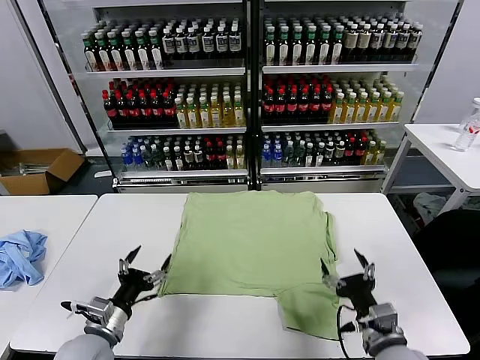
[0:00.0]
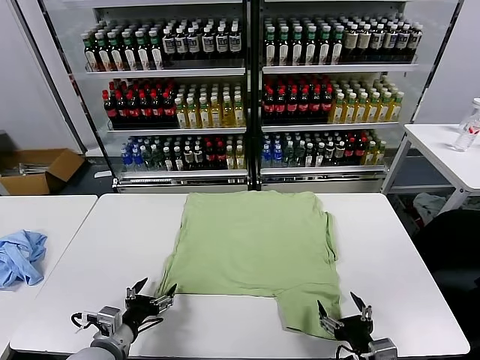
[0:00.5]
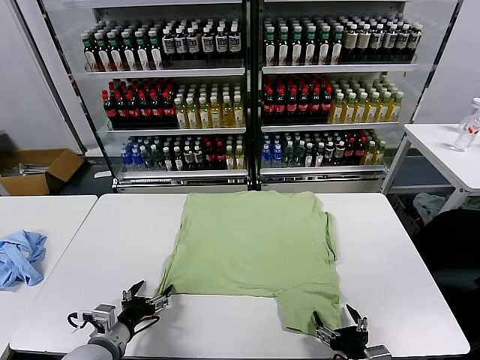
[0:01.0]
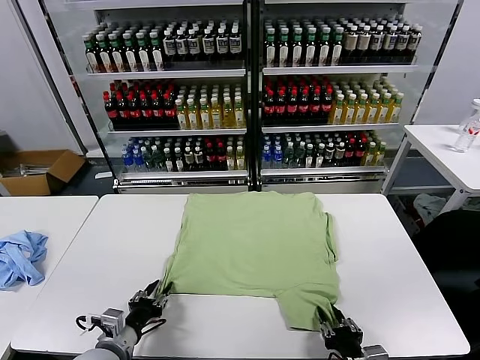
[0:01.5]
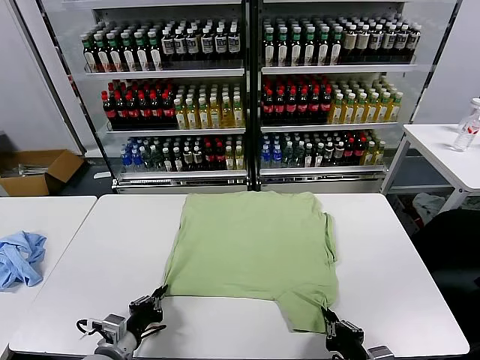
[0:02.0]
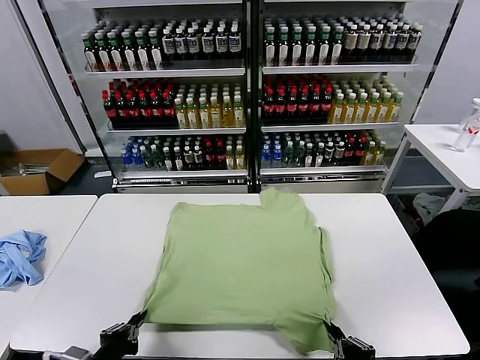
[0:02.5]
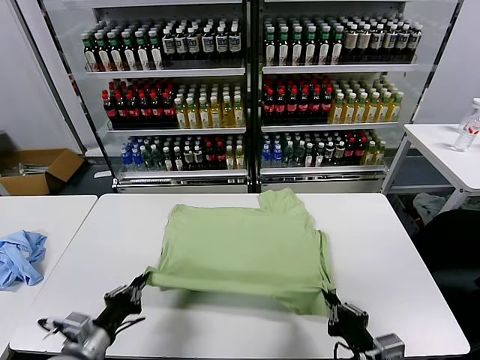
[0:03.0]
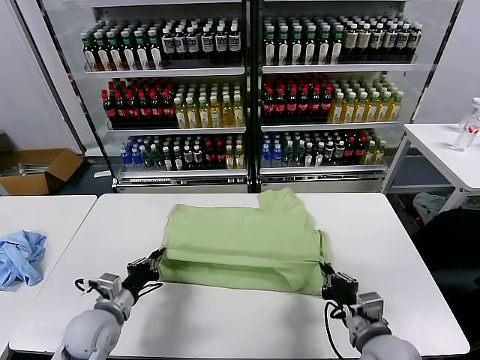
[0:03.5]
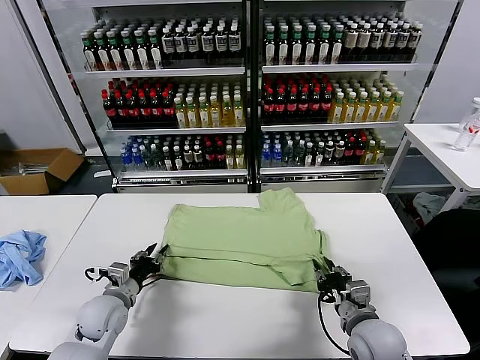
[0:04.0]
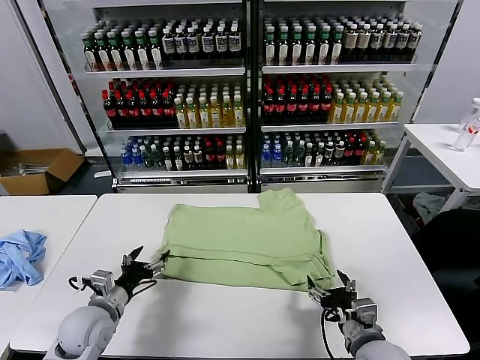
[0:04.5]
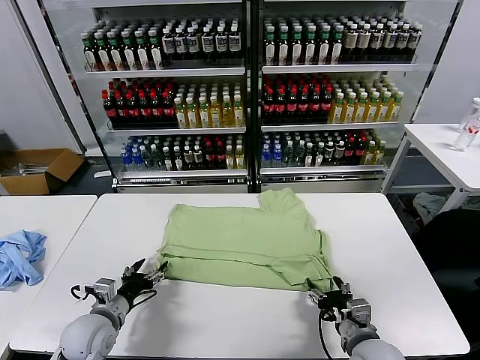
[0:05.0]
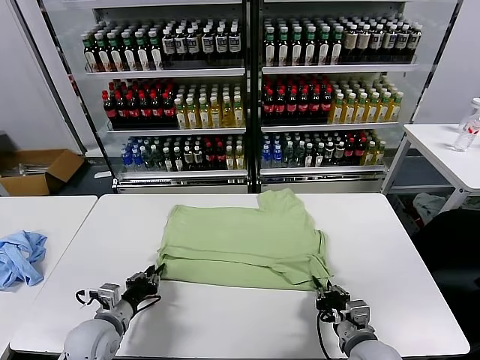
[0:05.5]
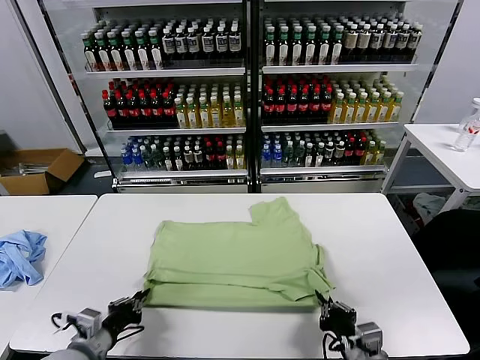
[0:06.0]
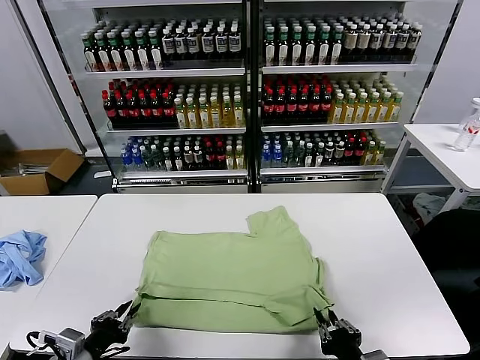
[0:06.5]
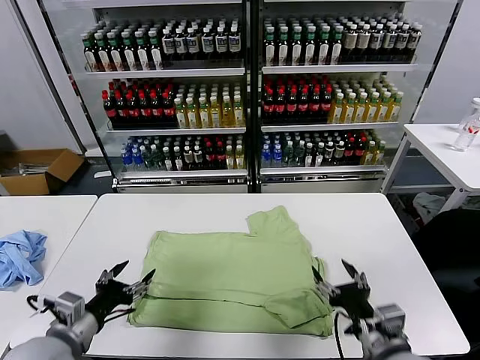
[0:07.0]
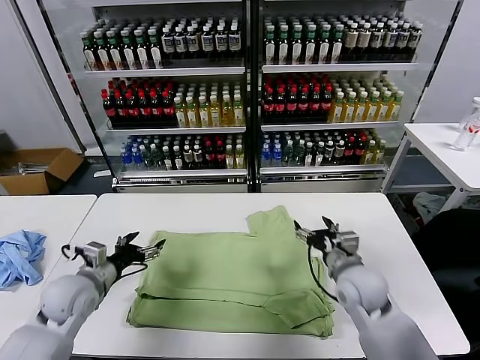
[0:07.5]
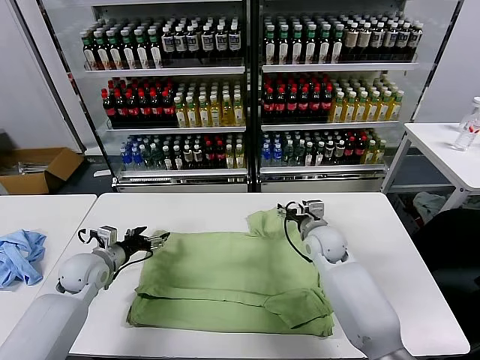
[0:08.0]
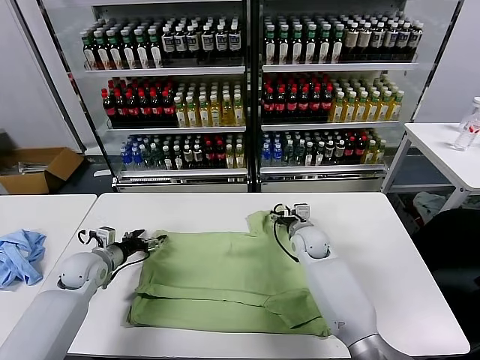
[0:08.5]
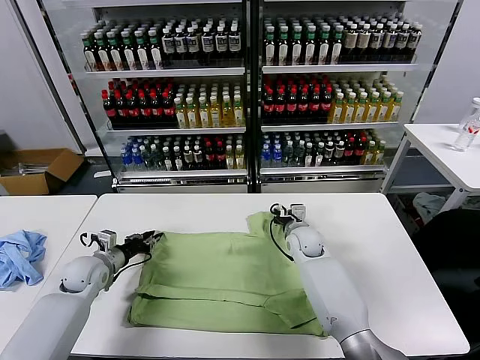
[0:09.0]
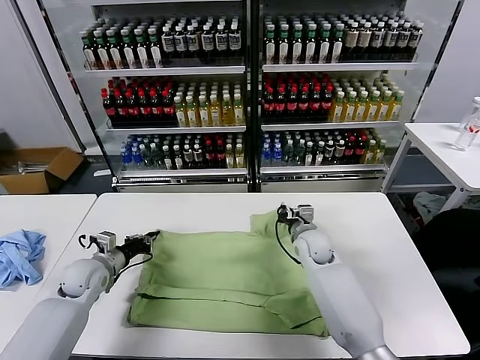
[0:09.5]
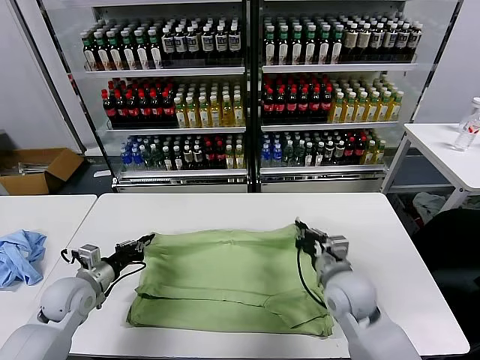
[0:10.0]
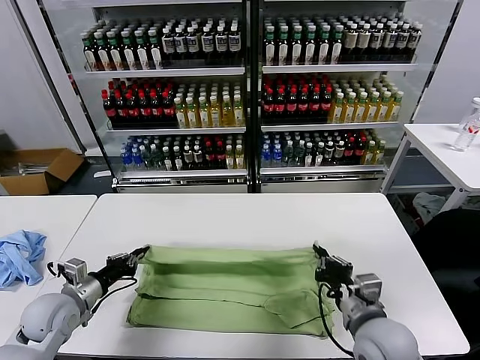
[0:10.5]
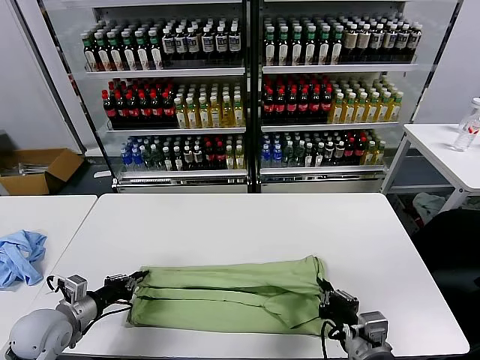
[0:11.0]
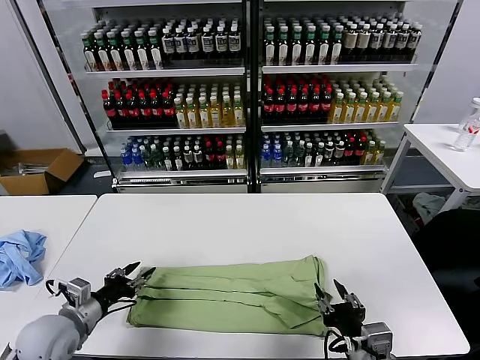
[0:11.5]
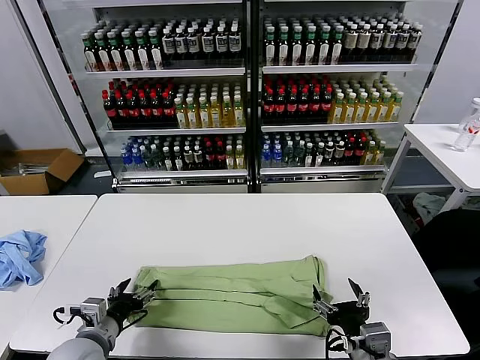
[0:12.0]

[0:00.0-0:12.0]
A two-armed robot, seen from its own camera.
Task of the whole recording: fold and organize the clothes.
Step, 0:00.0 to 0:01.5: use both grippers simultaneously to clamp the lower edge of the clothing fabric.
Step, 0:02.0 to 0:04.0: use both grippers to drag the lower edge of the fabric forward and fold it over the upper edge.
Step, 0:04.5 to 0:06.5: Drag the clothes downward with both gripper.
Step, 0:07.0 to 0:09.0: use both grippers simultaneously to clamp the upper edge of the clothing fabric.
Step, 0:09.5 to 0:11.0: use both grippers to drag the upper edge of the fabric backward and fold it over the lower edge.
0:02.0 to 0:04.0: The grippers both shift forward by approximately 15 cm. The left gripper opens its fingers. The right gripper opens its fingers.
0:04.0 to 0:06.0: The two grippers go some 10 cm backward. The left gripper closes. Meanwhile the right gripper closes up.
0:06.0 to 0:08.0: The left gripper goes some 20 cm forward, and opens. Meanwhile the right gripper shifts approximately 35 cm forward, and opens.
0:08.0 to 0:10.0: The right gripper goes roughly 15 cm backward, and closes. Meanwhile the left gripper is displaced backward by approximately 5 cm, and closes.
0:10.0 to 0:12.0: The right gripper moves backward, some 15 cm, and opens its fingers. The left gripper shifts roughly 15 cm backward and to the right, and opens its fingers.

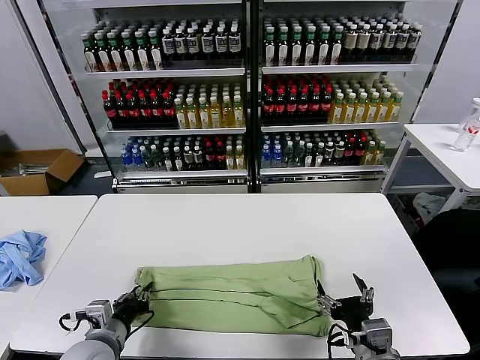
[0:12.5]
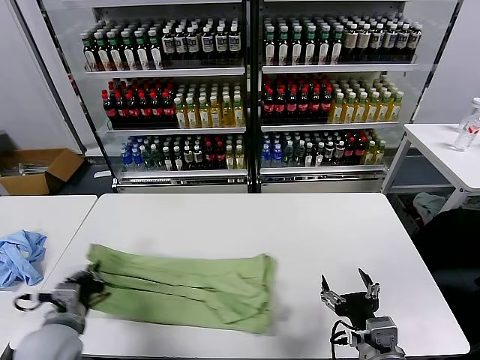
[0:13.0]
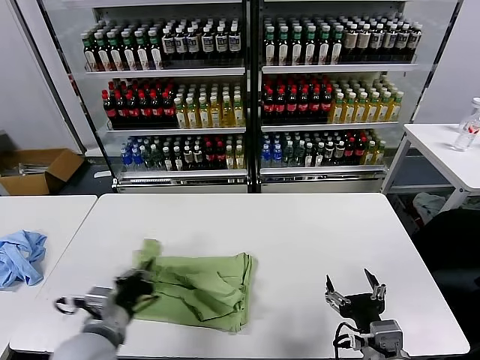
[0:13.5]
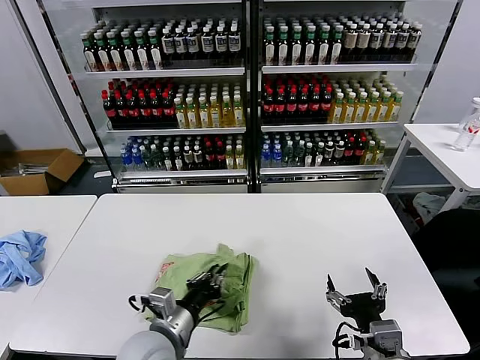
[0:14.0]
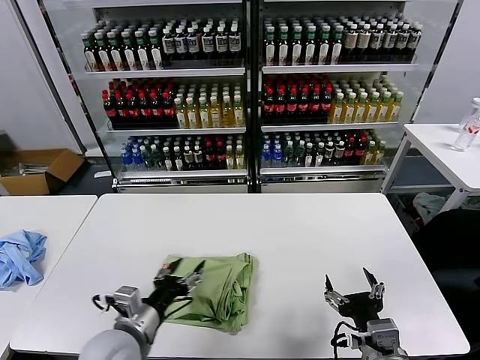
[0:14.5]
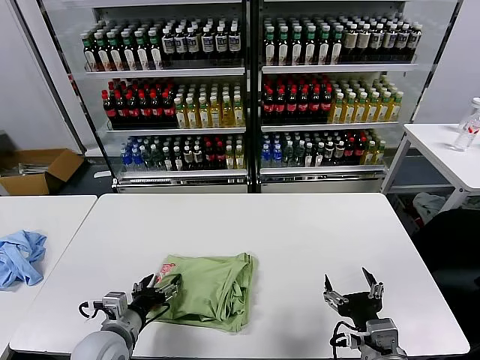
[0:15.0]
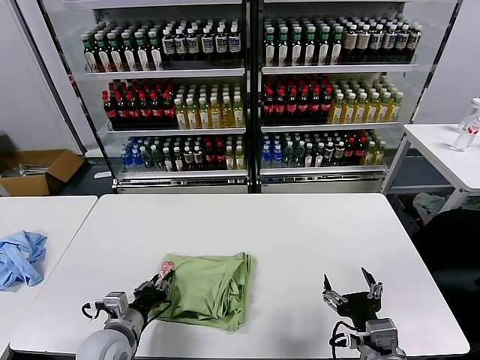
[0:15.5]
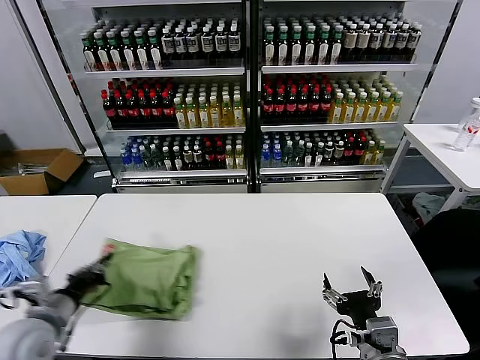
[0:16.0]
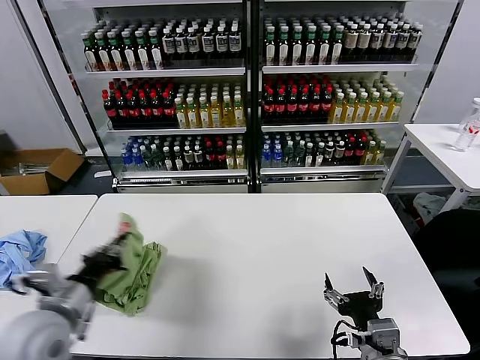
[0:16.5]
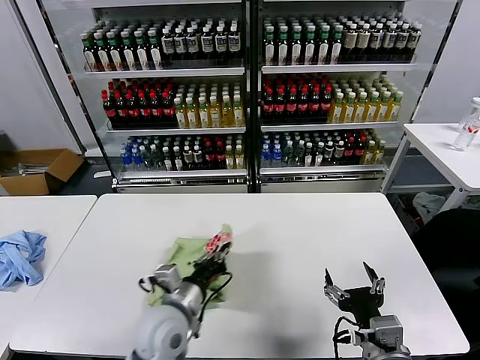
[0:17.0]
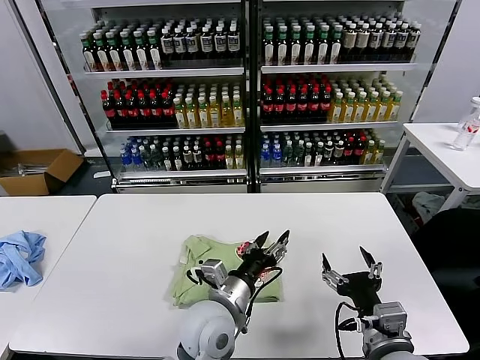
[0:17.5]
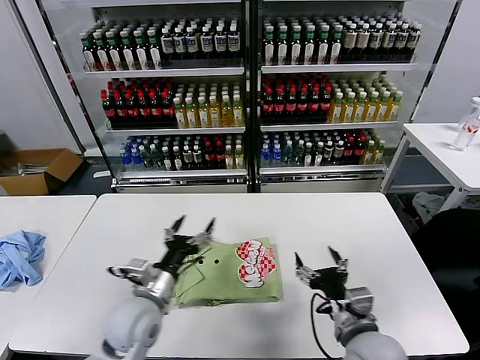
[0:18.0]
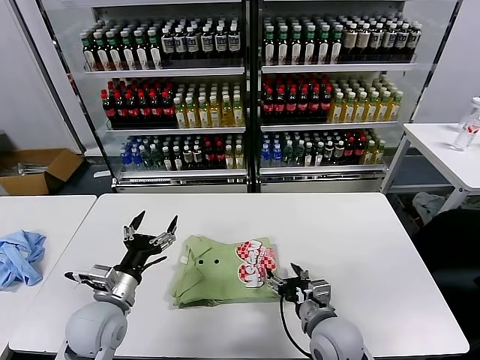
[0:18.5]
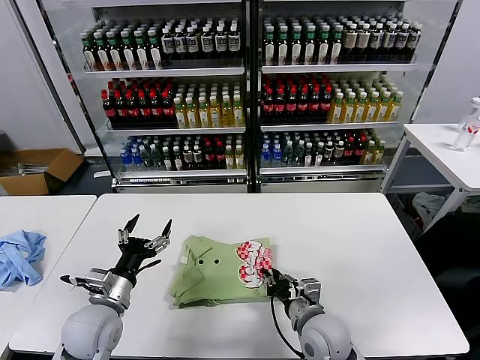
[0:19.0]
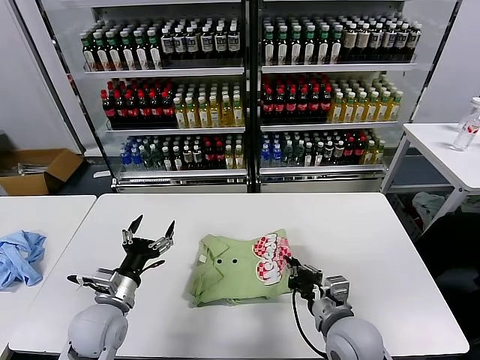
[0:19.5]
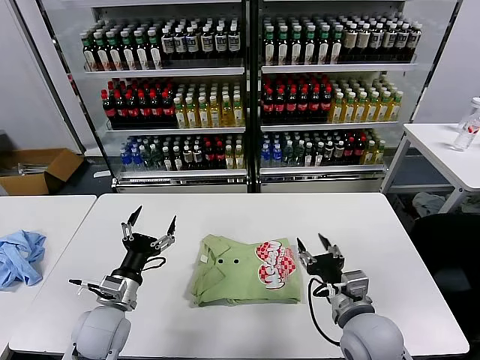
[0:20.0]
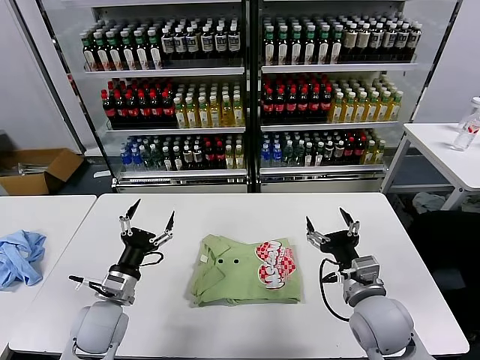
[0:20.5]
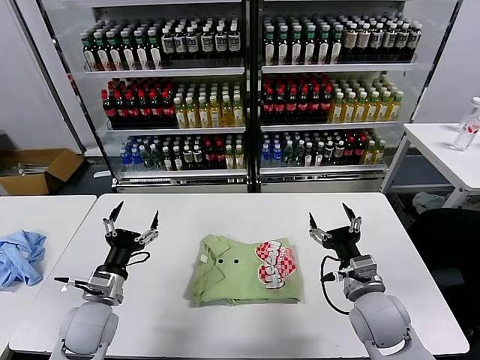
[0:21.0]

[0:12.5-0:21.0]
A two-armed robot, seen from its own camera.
Task of the whole recording: fold and organize the clothes.
Step, 0:13.0 to 0:14.0: use the left gripper to drag the left edge of the fabric to the left and folds it over the right edge.
Step, 0:14.5 to 0:17.0: Flip the folded clothes over with left gripper.
Step, 0:17.5 to 0:19.5: Drag the clothes to the center of the table.
0:12.5 to 0:14.5: The left gripper swings left and right, approximately 15 cm each way, with 2 reversals, and opens up.
0:14.5 to 0:16.5: The left gripper heads to the left and upward, covering some 15 cm, and closes up.
0:16.5 to 0:19.0: The right gripper shifts about 15 cm forward, downward and to the left, and closes its fingers; the left gripper goes some 10 cm downward, moves roughly 30 cm to the right and comes back, and opens up.
0:19.0 to 0:21.0: The right gripper heads to the right and upward, covering some 10 cm, and opens up.

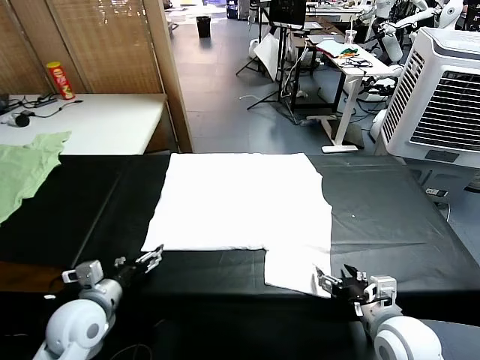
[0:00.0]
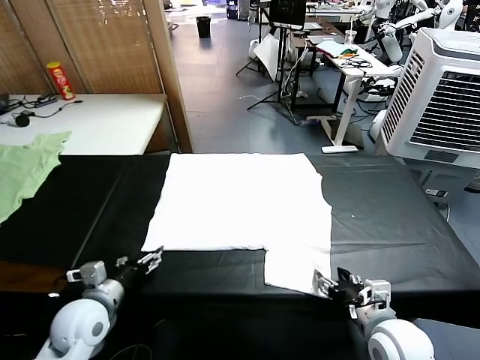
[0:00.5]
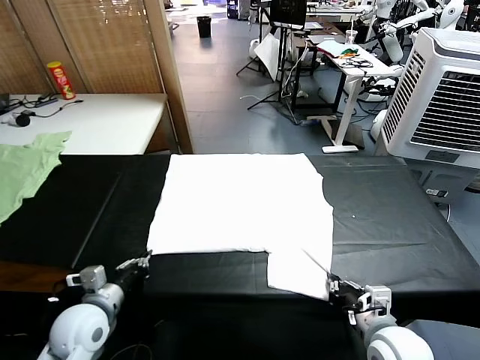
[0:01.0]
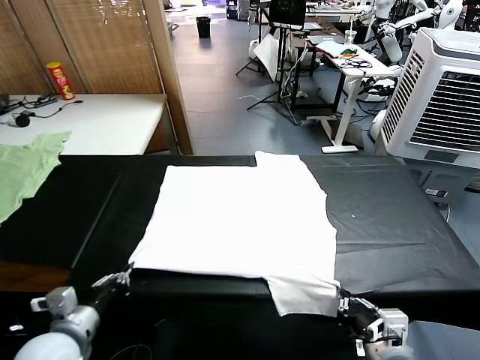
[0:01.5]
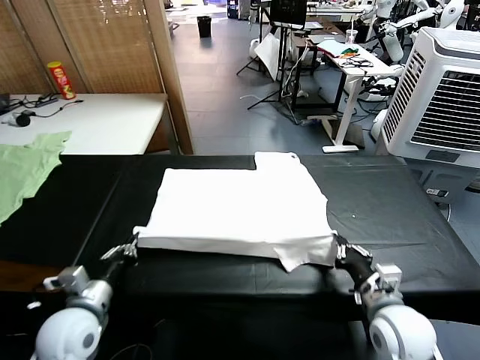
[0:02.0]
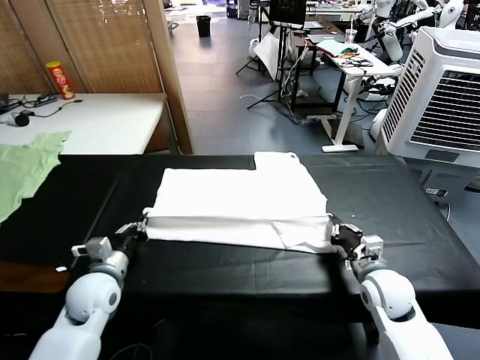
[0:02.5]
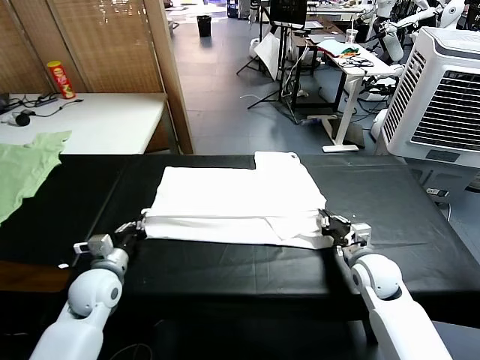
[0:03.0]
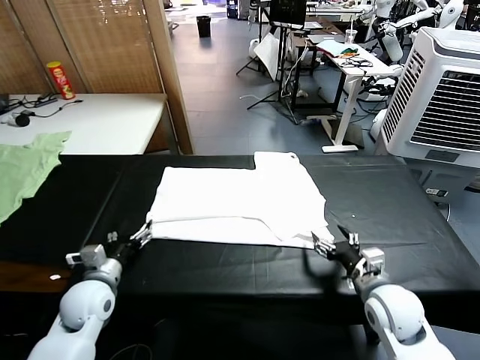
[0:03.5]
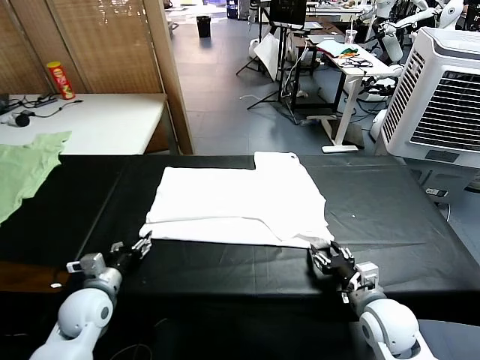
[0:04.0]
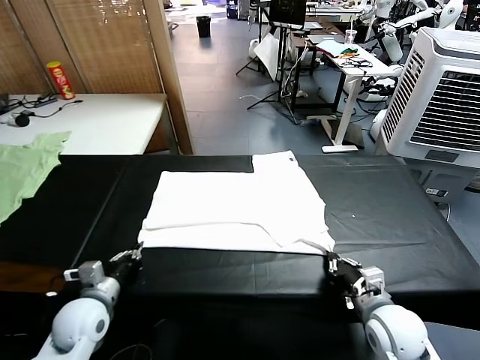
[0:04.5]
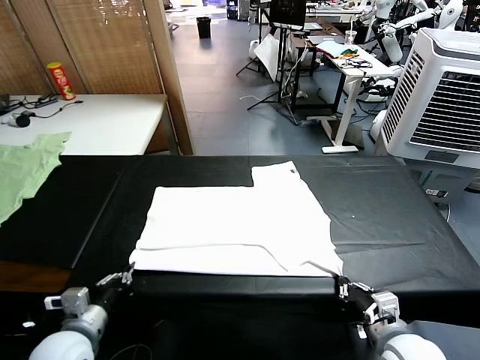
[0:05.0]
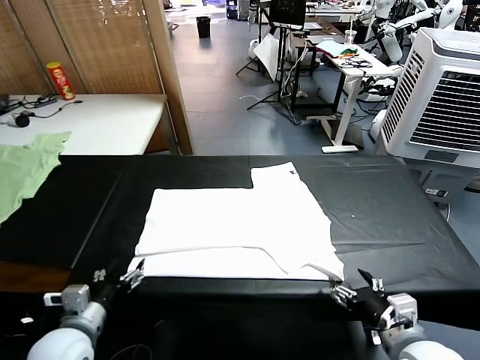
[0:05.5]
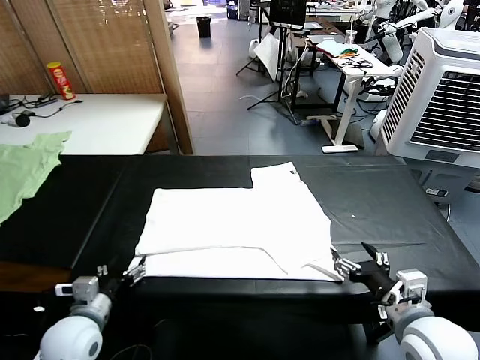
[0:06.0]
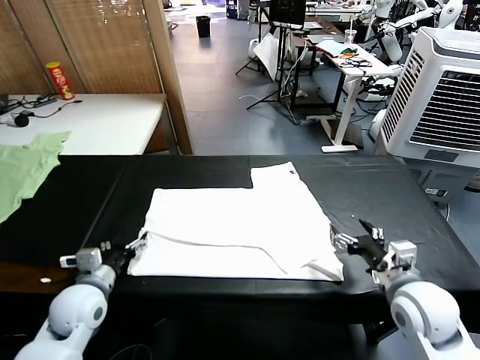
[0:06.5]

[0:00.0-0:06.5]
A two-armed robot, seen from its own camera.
Task of the whole recording: fold and organize the clothes.
Step, 0:00.0 to 0:01.0: use both grippers simultaneously to clamp the lower edge of the clothing fabric.
Step, 0:01.5 to 0:03.0: use both grippers to drag the lower edge of the fabric forward and fold it over the upper edge.
Step, 0:03.5 to 0:05.0: Drag the clothes downward with both gripper.
0:02.0 to 0:04.5: The left gripper reaches approximately 10 cm forward, then returns, and opens and closes again. Meanwhile the right gripper travels backward by some 5 cm, and opens, then closes again.
0:04.5 to 0:06.5: The left gripper goes backward and returns, some 5 cm each way, and opens up; the right gripper shifts some 10 cm forward and upward, and opens its fingers.
